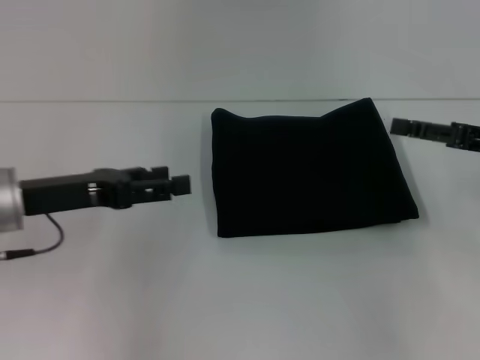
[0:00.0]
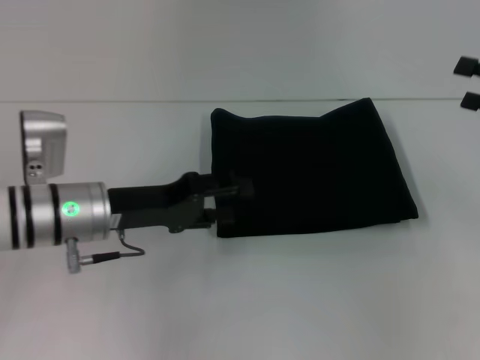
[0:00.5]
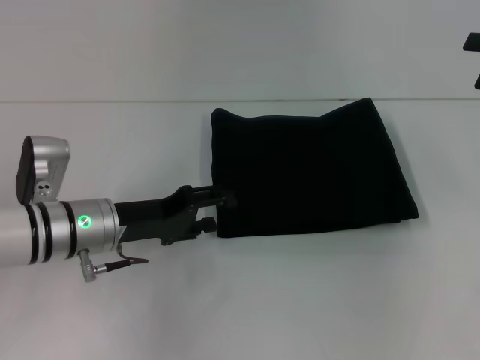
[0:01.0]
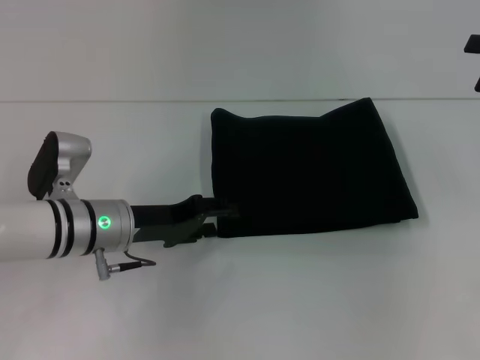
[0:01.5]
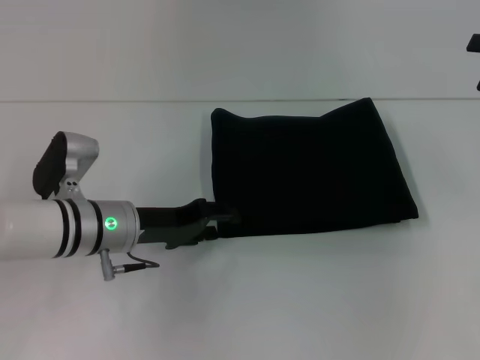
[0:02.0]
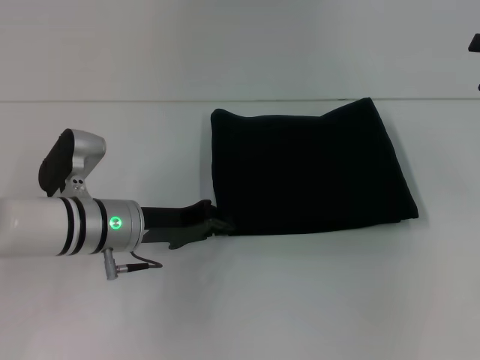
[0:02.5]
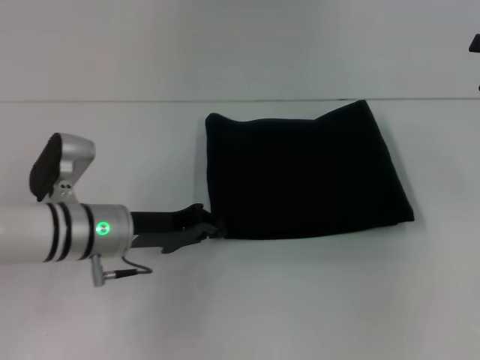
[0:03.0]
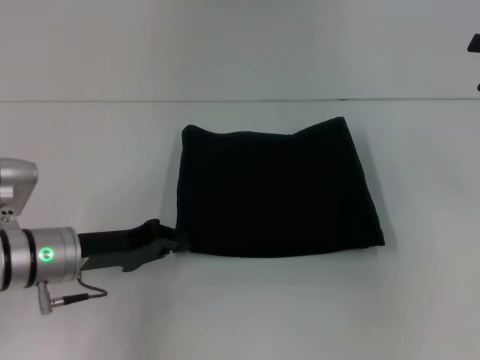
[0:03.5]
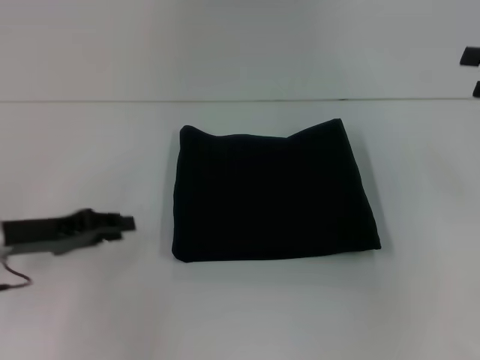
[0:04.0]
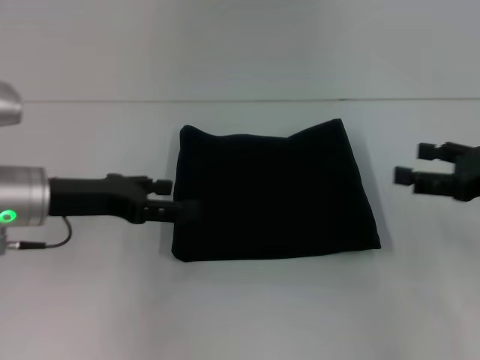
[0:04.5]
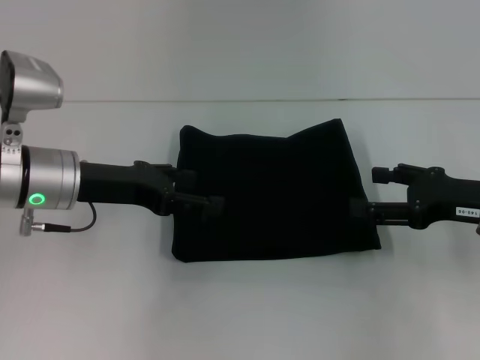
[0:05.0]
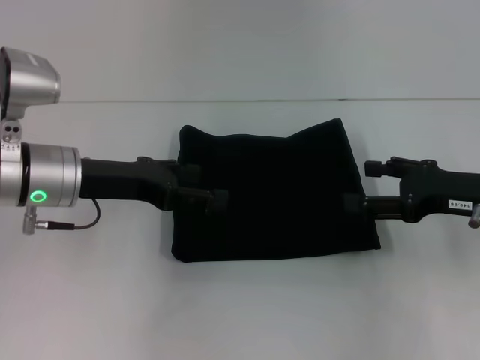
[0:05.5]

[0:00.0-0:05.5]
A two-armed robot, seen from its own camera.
0.0 to 2.0 s: The right gripper moves upward and to the right, some 10 cm; the left gripper shifts about 10 cm to the right and downward.
2.0 to 3.5 s: The left gripper heads to the left, covering roughly 5 cm, and closes.
3.5 to 5.5 s: The left gripper goes some 10 cm upward, and opens. Meanwhile the right gripper is displaced to the left and downward by roughly 15 cm.

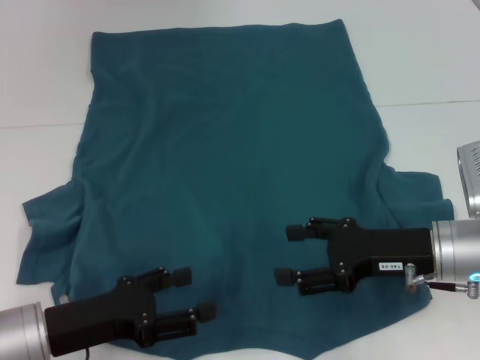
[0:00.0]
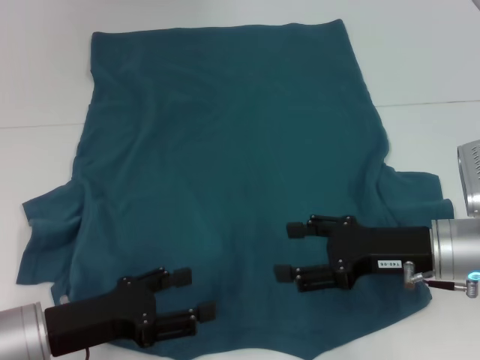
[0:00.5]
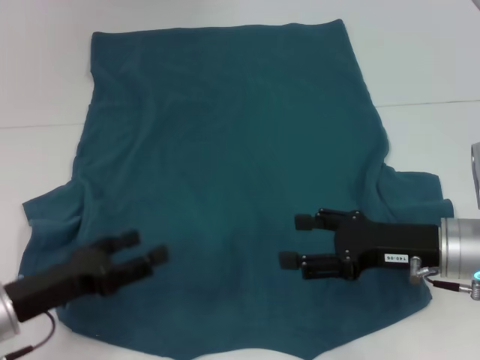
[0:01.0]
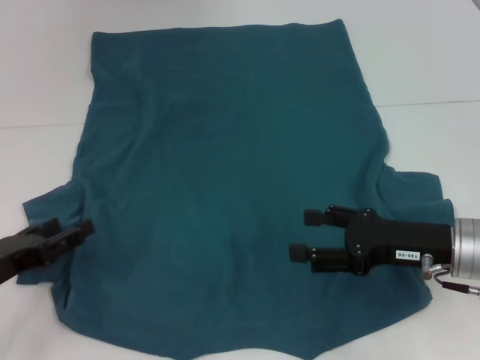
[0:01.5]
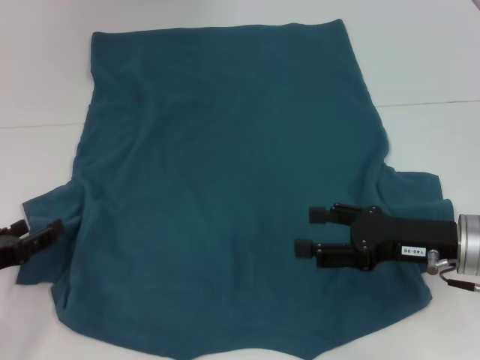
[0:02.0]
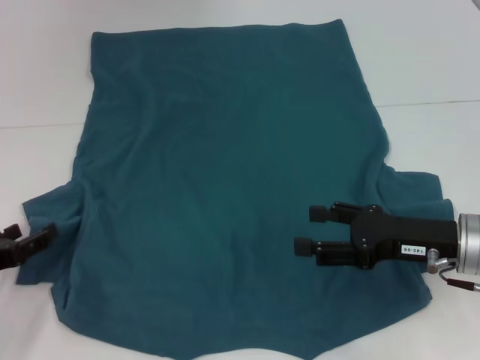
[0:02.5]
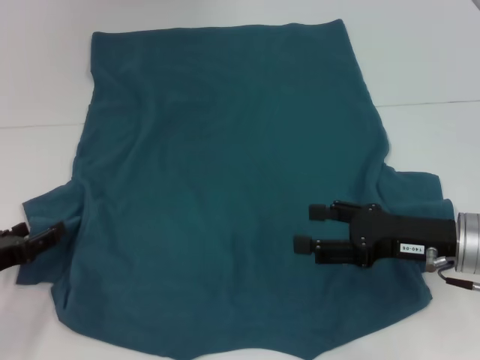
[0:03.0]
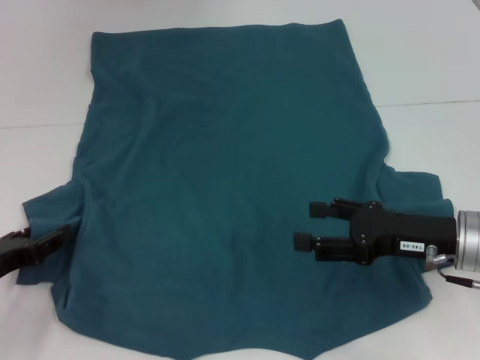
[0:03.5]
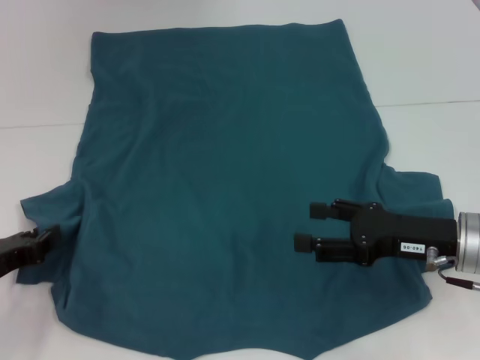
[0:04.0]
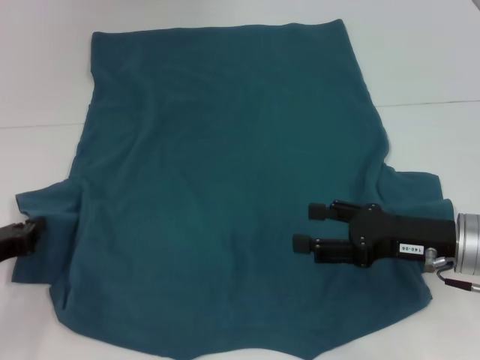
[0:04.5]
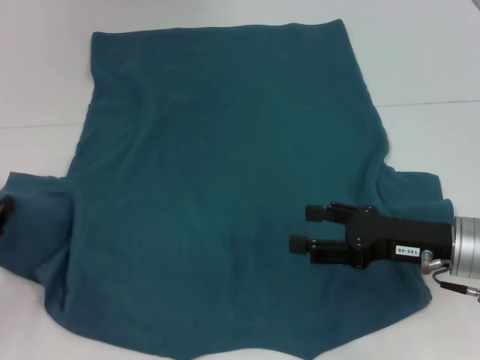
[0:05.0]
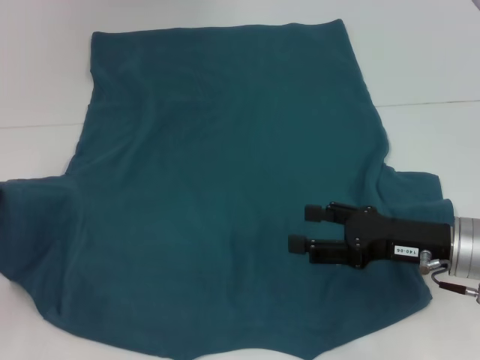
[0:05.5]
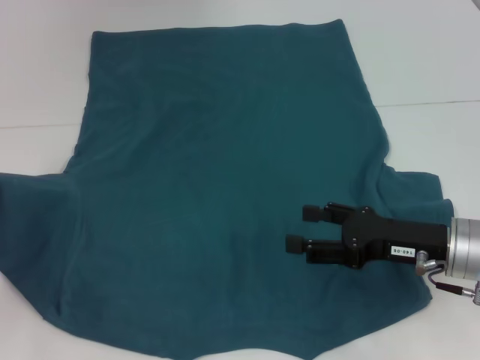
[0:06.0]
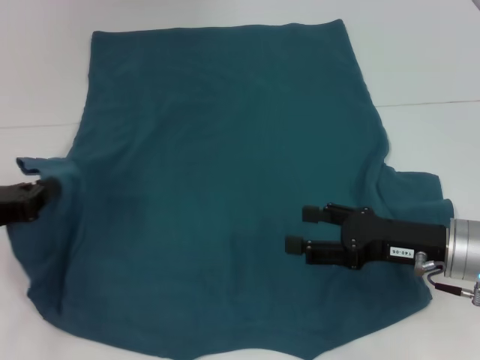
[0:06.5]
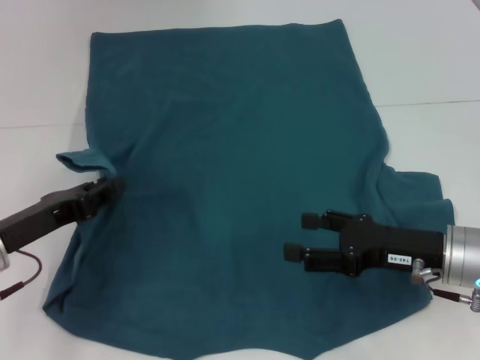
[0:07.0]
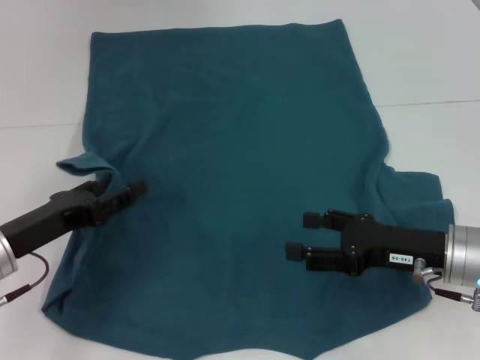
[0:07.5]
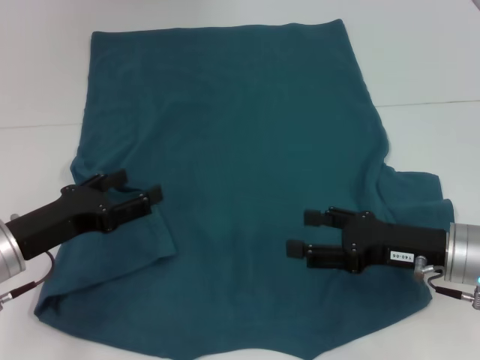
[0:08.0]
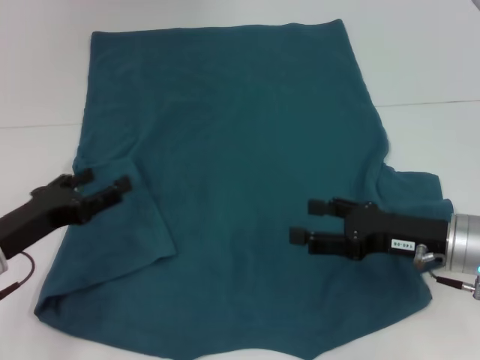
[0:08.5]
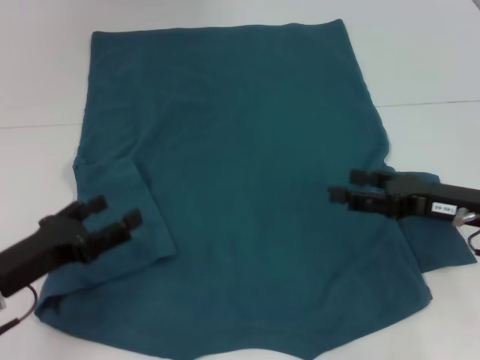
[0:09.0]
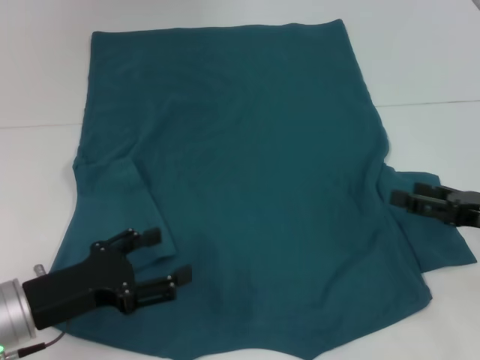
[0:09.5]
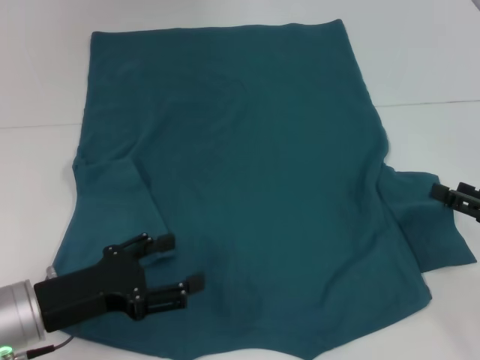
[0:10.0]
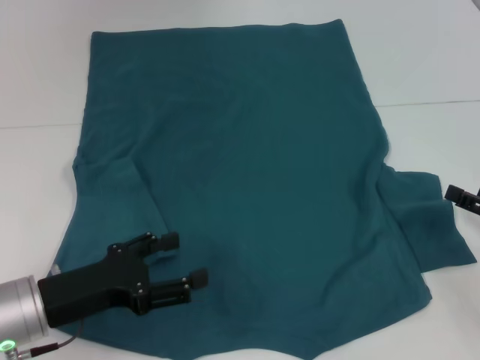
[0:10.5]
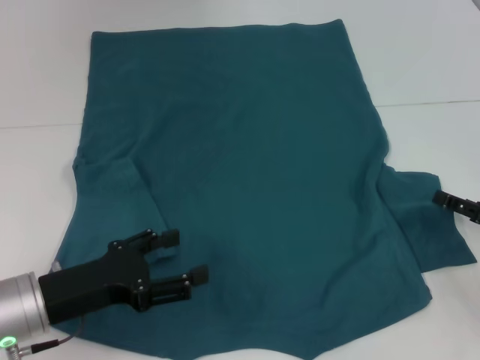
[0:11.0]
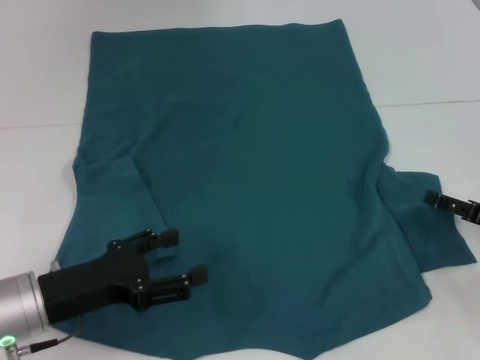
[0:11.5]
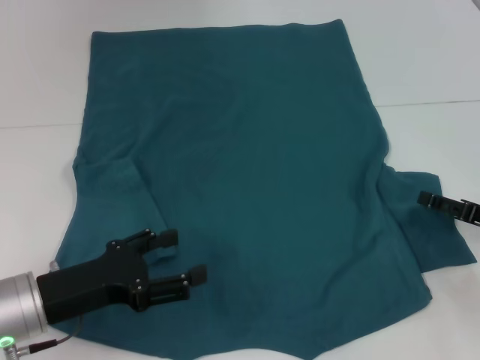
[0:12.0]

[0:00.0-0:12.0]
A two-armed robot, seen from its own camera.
Step, 0.0 to 8.0 s: Fold the bottom left sleeve with your left hand.
0.0 to 2.0 s: The left gripper moves to the left, approximately 10 cm.
2.0 to 4.0 s: The left gripper closes up.
4.0 to 6.0 s: The left gripper shifts some 5 cm upward, and closes its fingers.
6.0 to 8.0 s: The left gripper goes approximately 10 cm to the right, and opens up.
8.0 to 10.0 s: The left gripper moves some 5 cm; the right gripper heads to the right, covering about 10 cm.
10.0 to 12.0 s: The grippers move only a little.

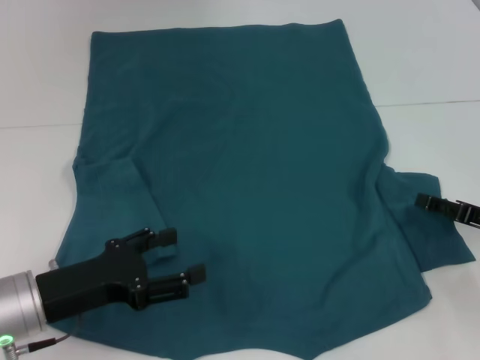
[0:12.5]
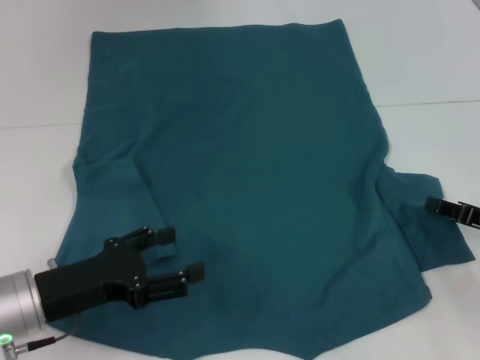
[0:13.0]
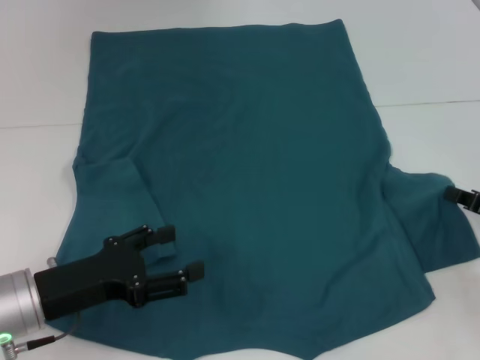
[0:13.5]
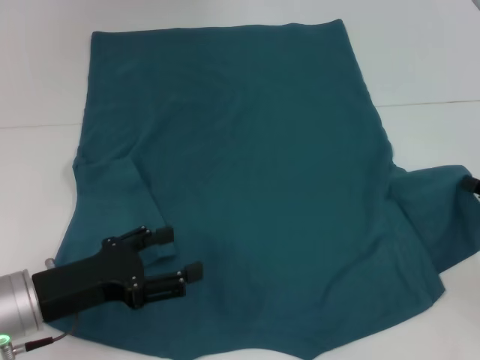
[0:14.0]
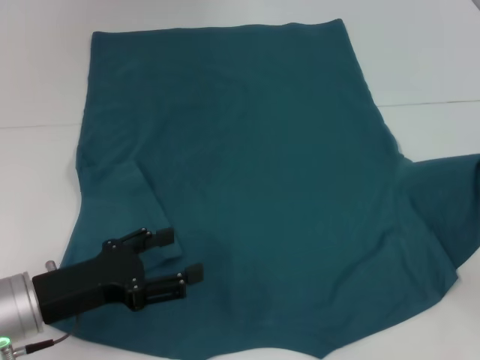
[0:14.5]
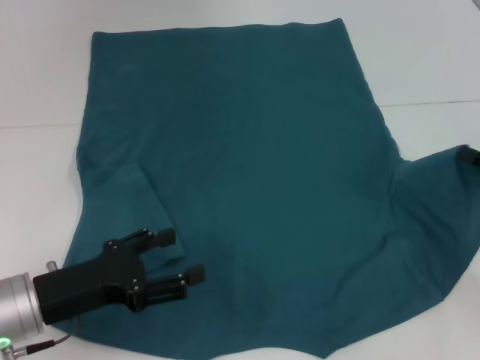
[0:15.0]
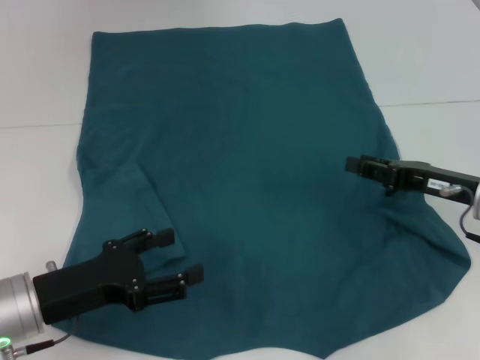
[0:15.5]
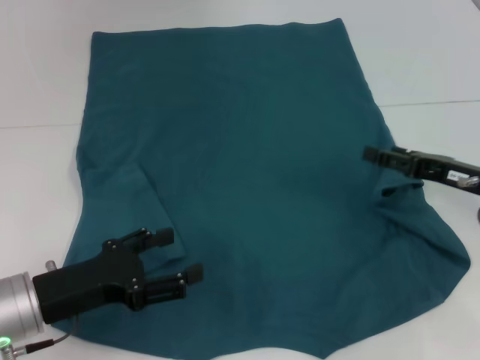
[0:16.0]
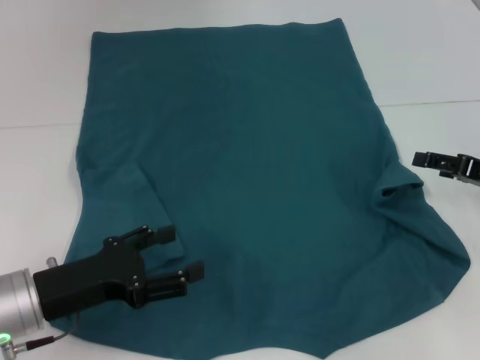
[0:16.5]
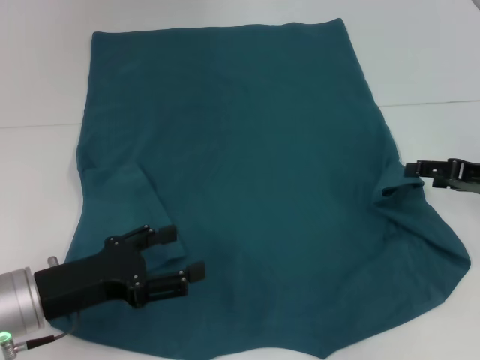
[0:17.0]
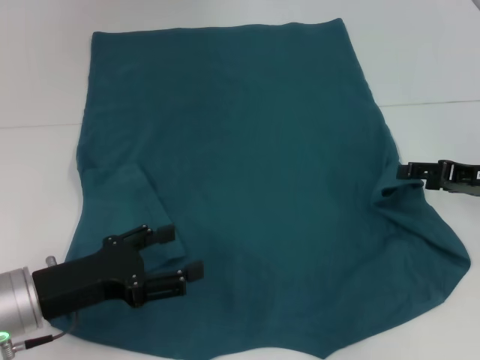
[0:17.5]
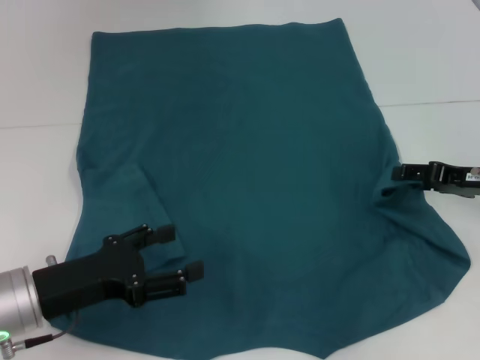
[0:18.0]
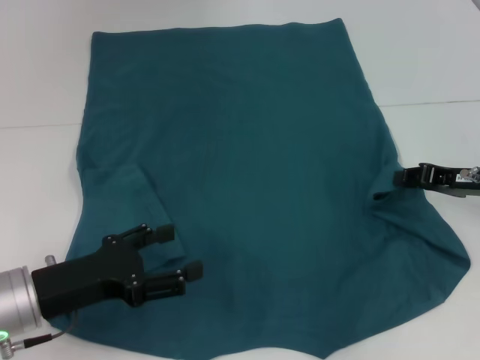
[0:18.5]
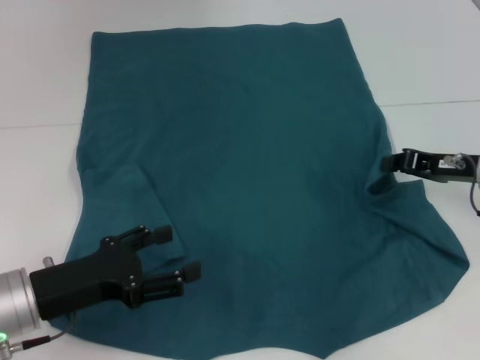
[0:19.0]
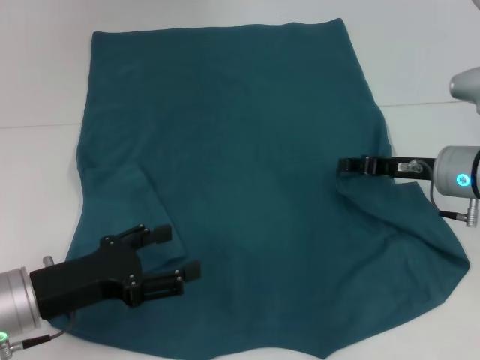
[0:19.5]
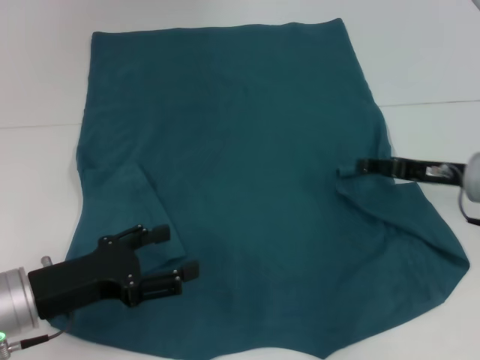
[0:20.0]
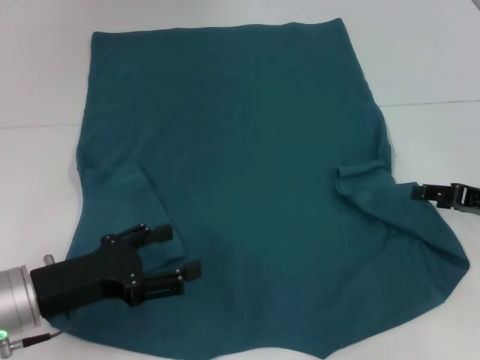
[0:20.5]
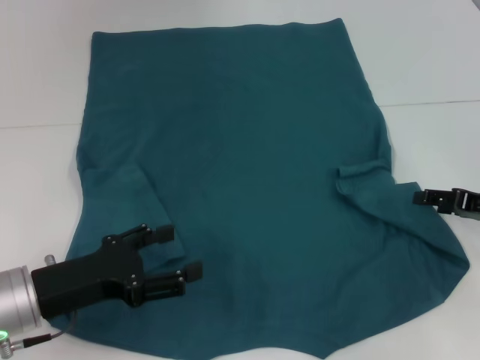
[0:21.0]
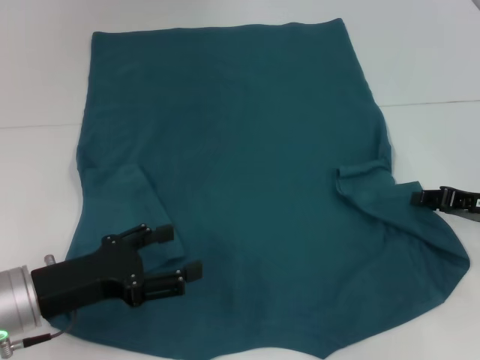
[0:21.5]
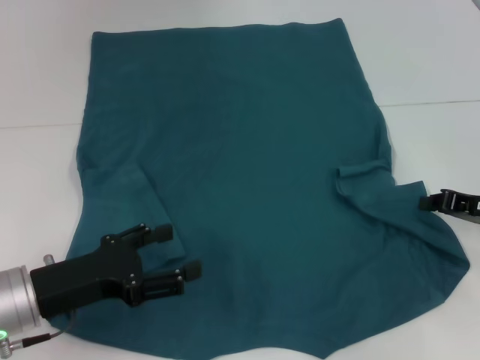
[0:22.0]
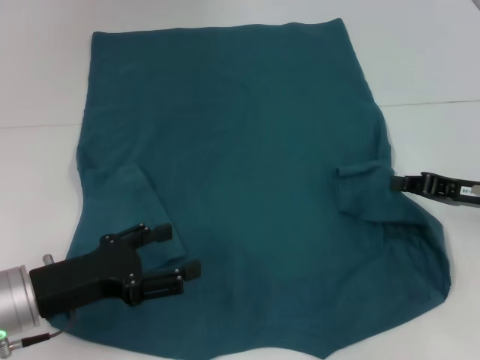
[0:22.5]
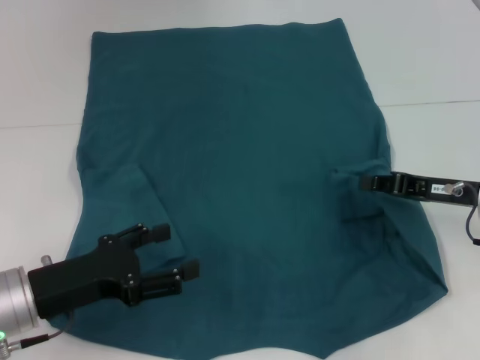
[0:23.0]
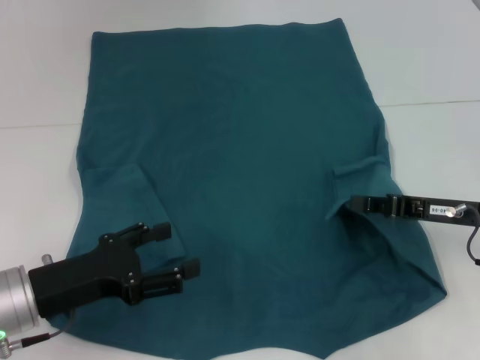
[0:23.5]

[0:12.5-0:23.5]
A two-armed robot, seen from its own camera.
12.5 to 14.5 s: The right gripper closes.
14.5 to 16.0 s: The right gripper moves to the left, some 10 cm, and opens its fingers.
18.0 to 20.0 s: The right gripper closes and opens again.
20.0 to 21.5 s: The right gripper shifts by roughly 5 cm.
21.5 to 23.5 s: The right gripper moves to the left, about 5 cm, and closes its fingers.
